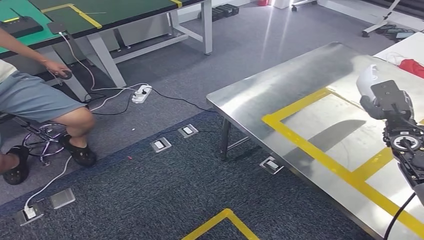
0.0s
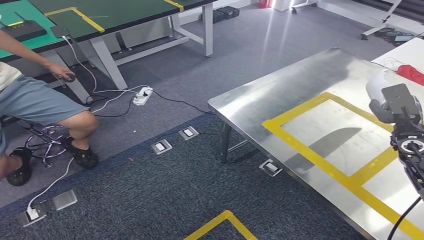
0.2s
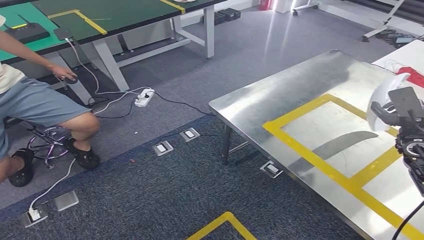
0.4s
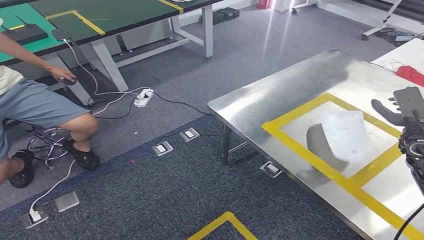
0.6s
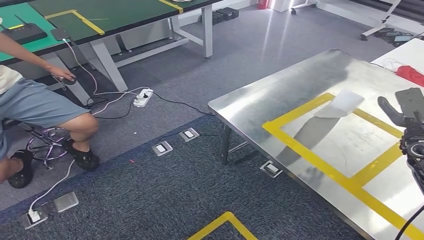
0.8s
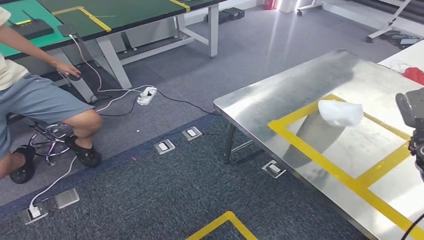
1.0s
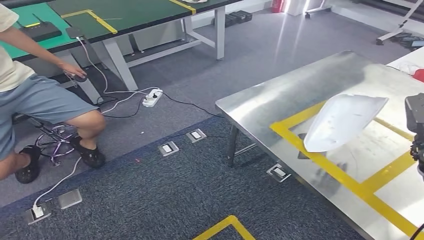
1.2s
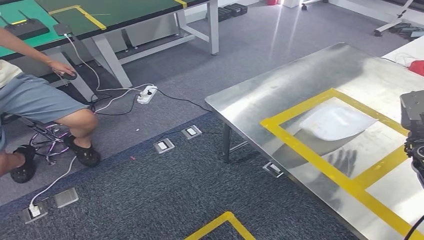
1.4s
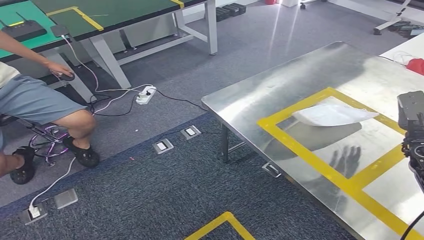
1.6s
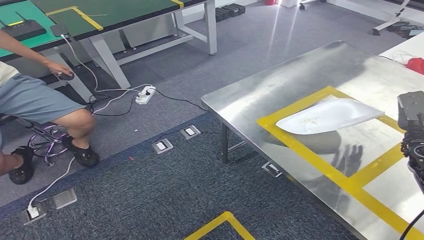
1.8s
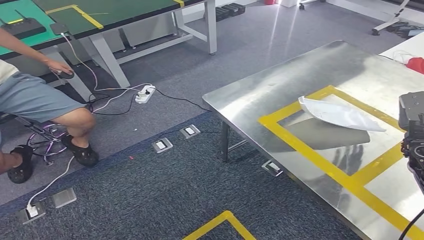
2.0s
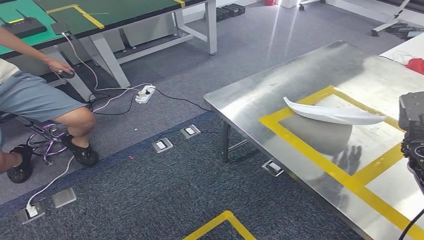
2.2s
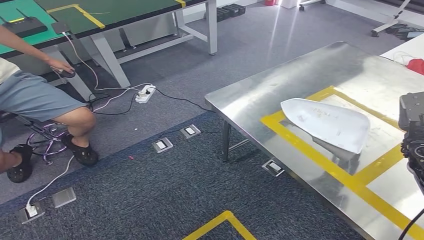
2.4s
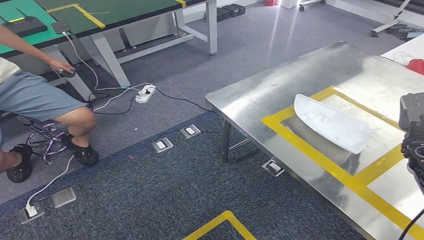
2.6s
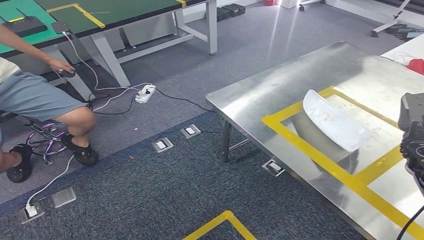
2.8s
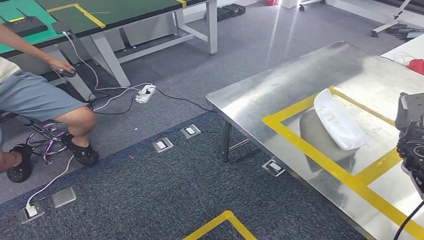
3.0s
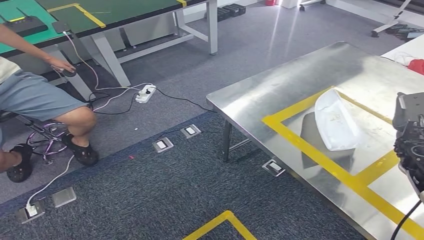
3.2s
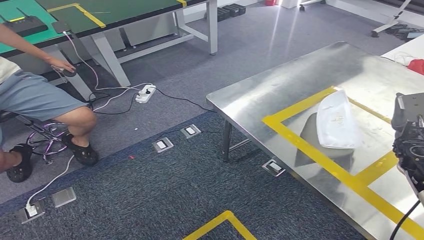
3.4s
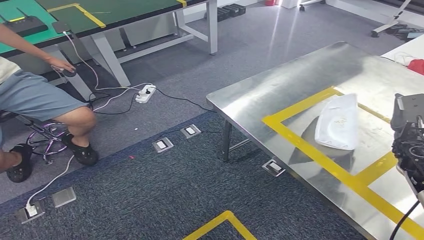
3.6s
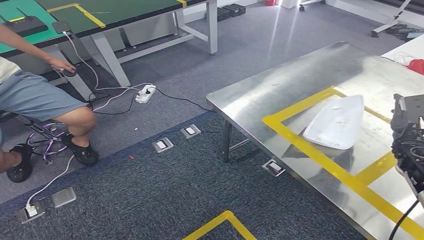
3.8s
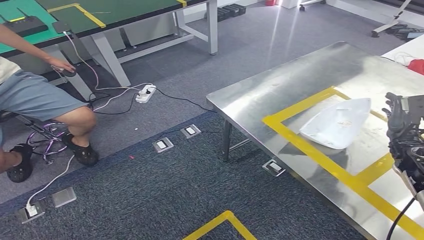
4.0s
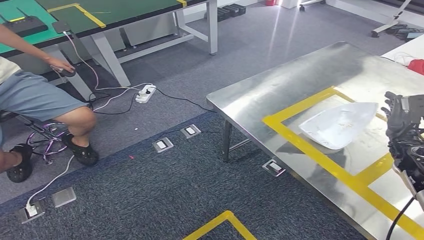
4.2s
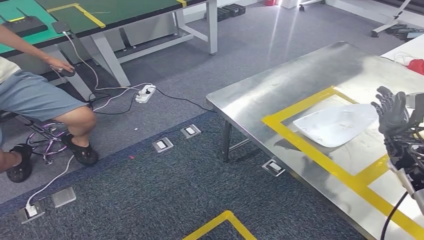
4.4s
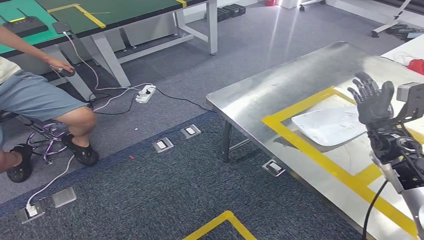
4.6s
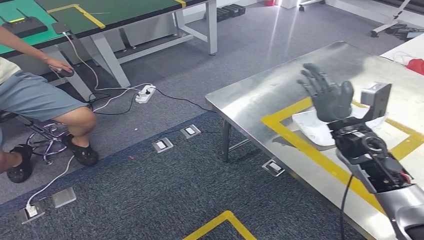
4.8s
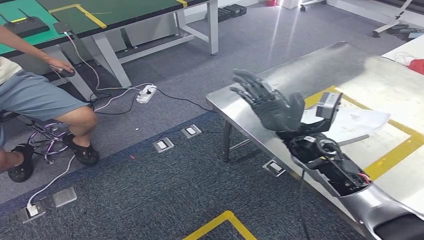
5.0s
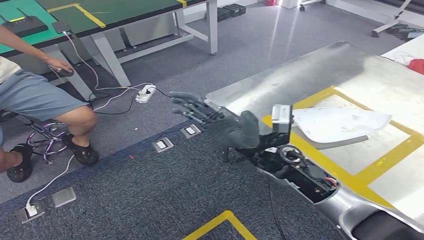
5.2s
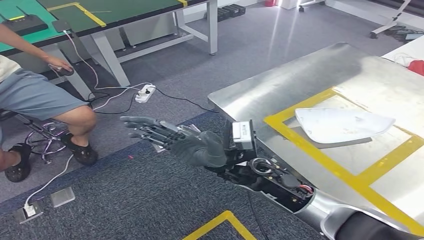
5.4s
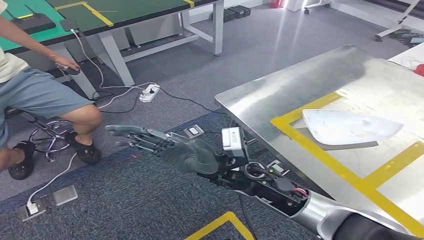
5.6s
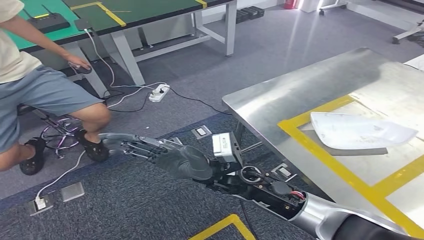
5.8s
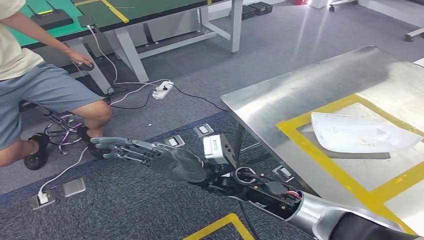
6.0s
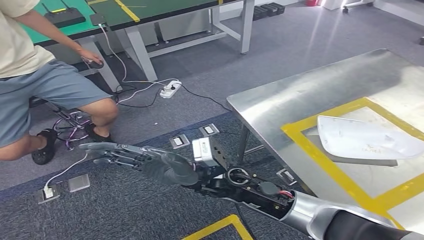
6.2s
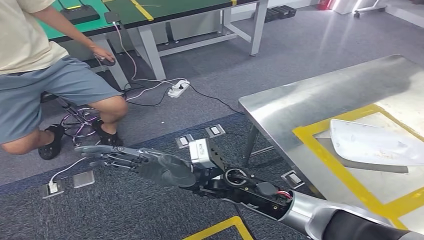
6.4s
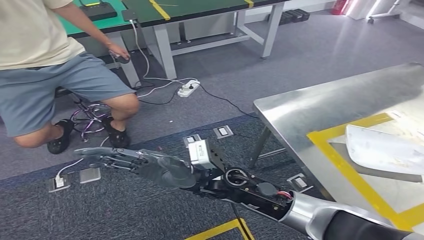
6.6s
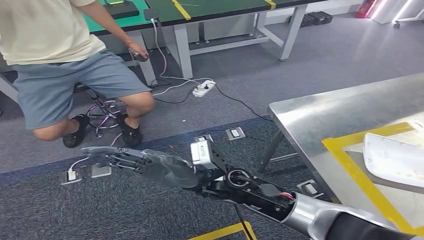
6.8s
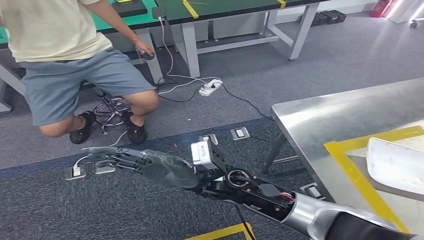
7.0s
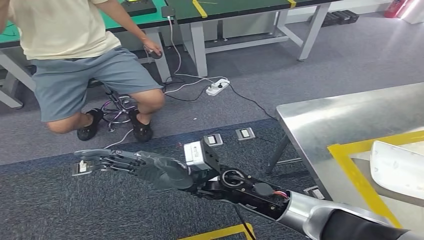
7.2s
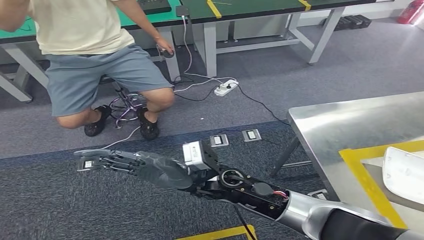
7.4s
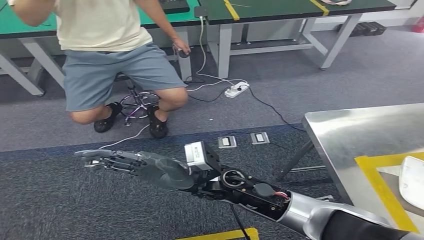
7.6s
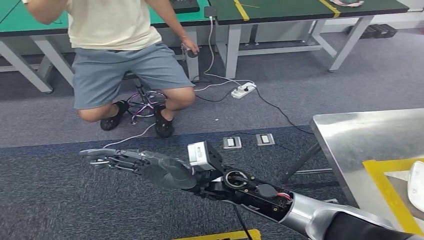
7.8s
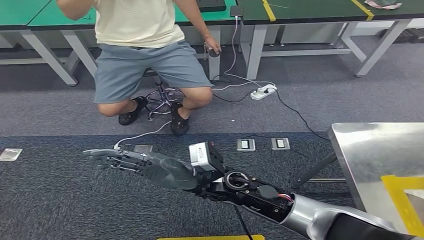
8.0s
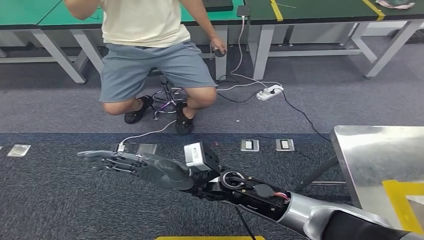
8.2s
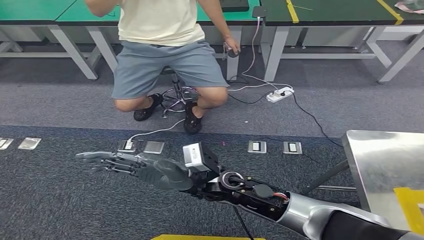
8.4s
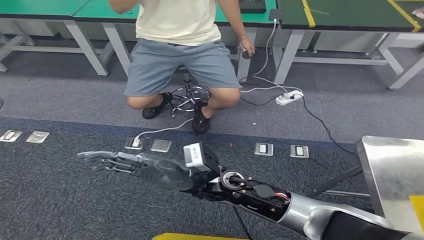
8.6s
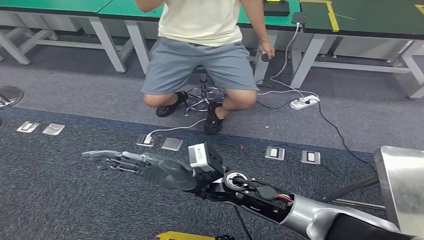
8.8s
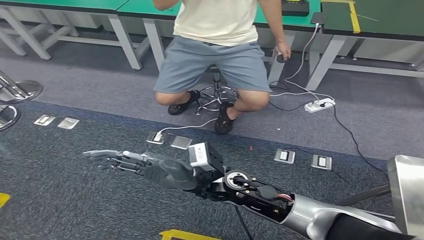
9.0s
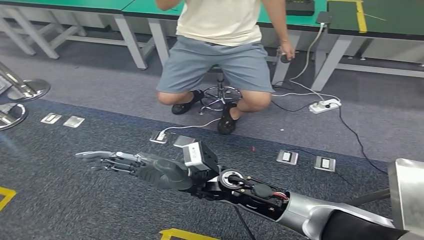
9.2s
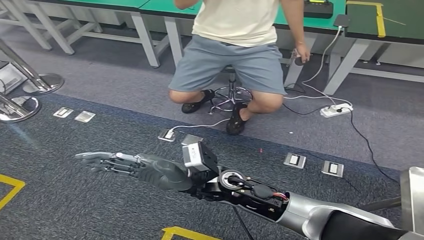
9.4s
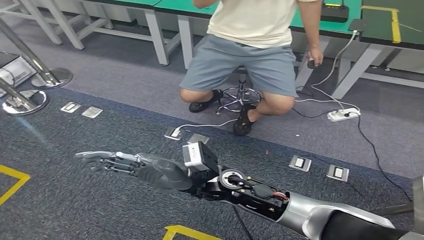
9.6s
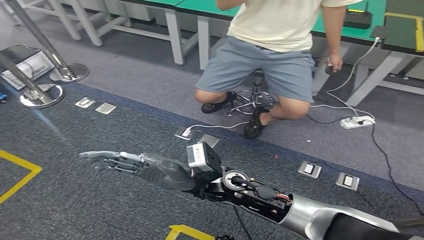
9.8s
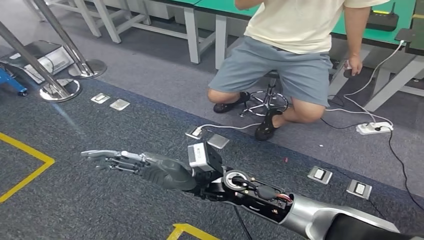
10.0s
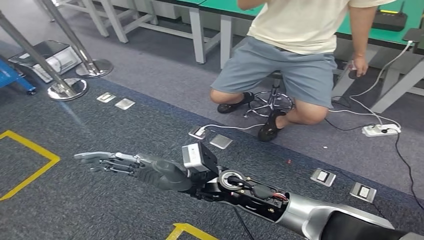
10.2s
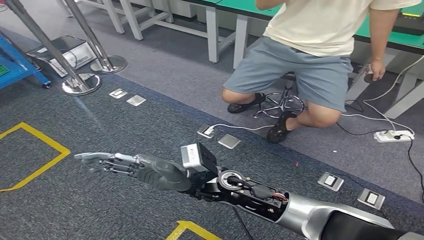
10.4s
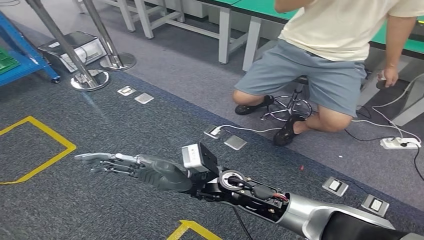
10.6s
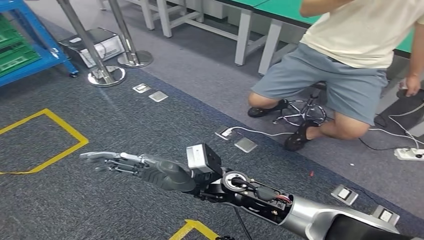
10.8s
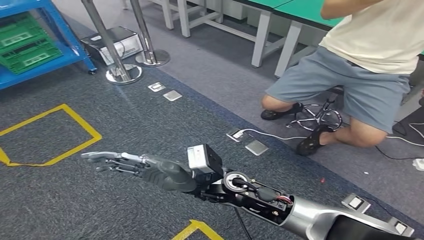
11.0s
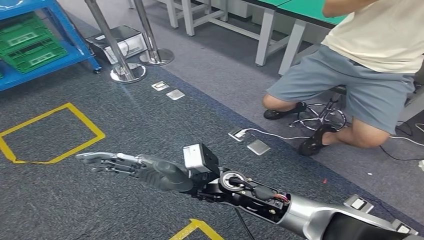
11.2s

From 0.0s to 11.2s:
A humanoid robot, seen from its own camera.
Step, from 0.0s to 2.8s: Insert the small parts into the corresponding holes on the workbench.
From 1.6s to 3.2s: The hands stay close to where they were, moving slightly.
From 3.2s to 4.8s: The right hand is displaced to the left and upward by about 15 cm.

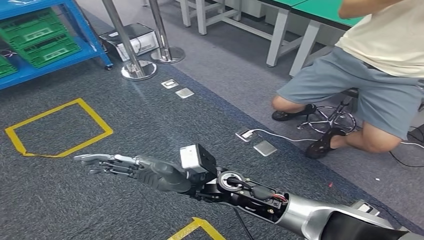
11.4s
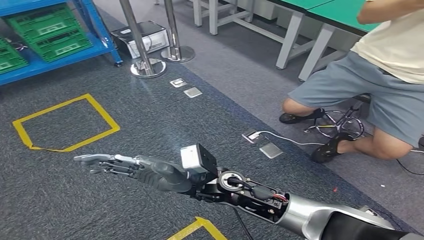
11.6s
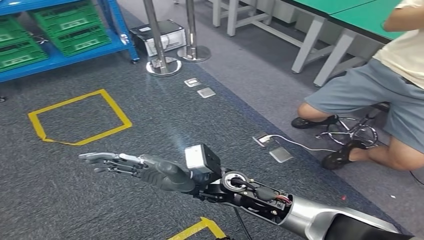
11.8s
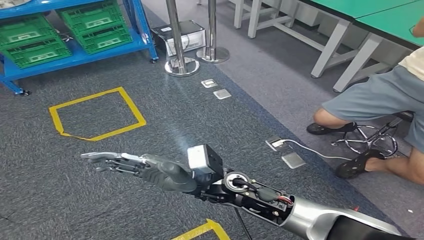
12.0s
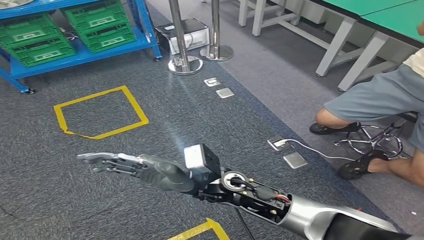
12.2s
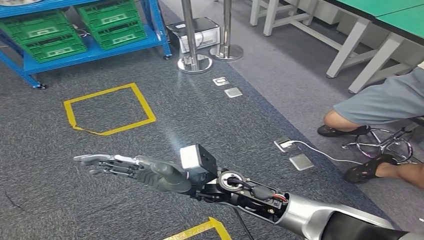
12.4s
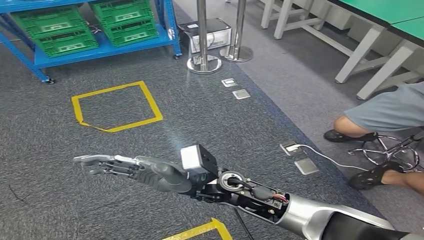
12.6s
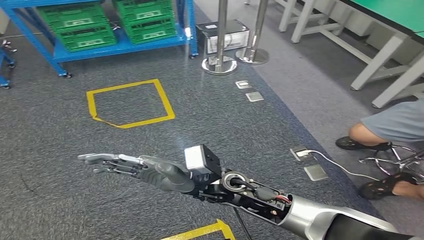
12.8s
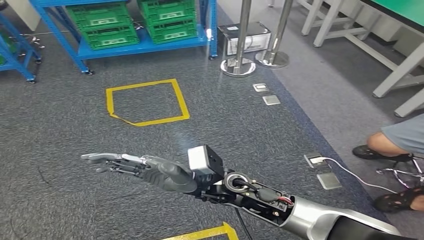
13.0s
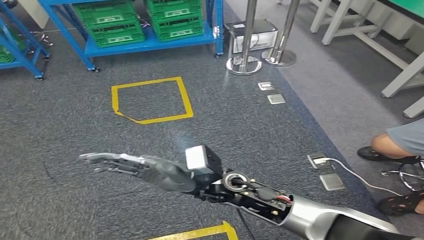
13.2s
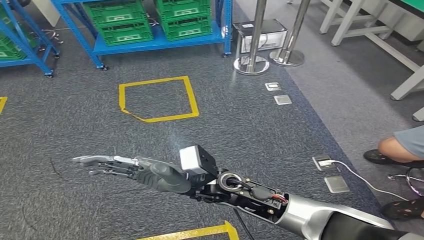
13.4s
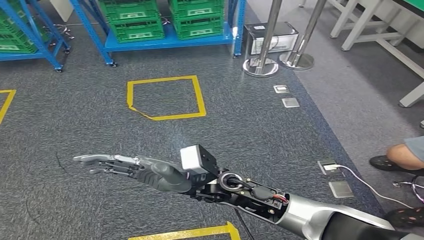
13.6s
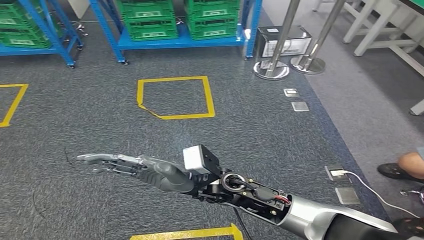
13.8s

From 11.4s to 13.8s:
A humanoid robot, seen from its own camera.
Step, from 11.4s to 13.8s: Move to the initial position at the workbench.
